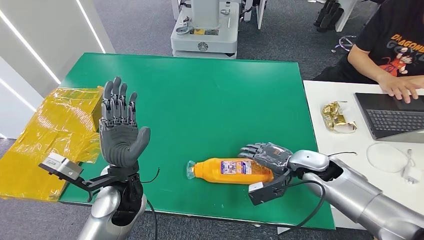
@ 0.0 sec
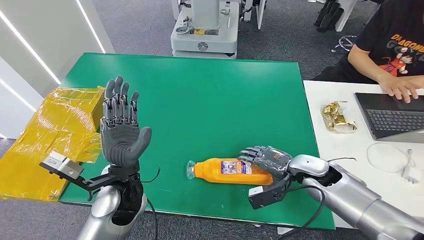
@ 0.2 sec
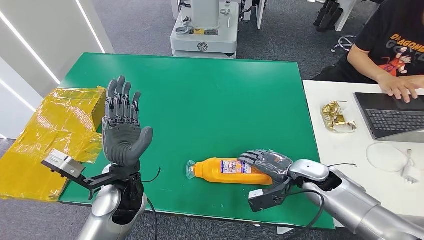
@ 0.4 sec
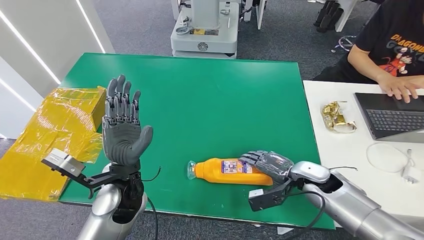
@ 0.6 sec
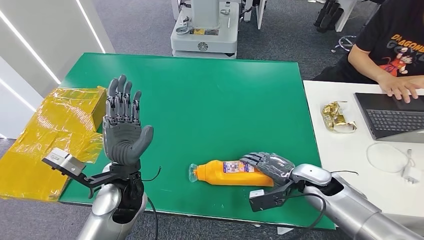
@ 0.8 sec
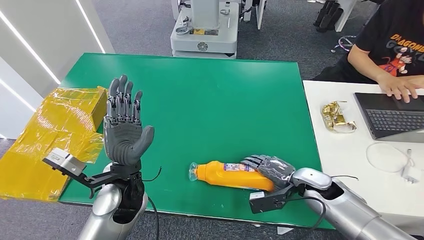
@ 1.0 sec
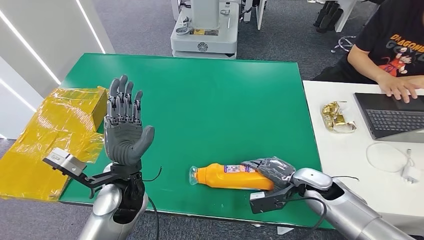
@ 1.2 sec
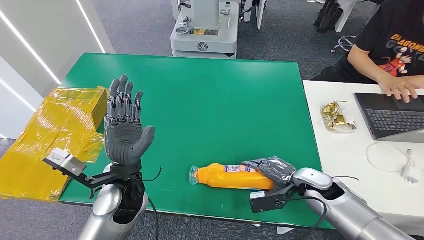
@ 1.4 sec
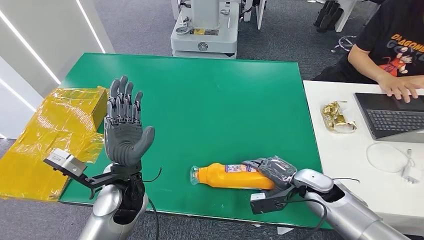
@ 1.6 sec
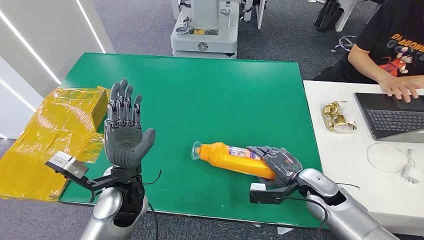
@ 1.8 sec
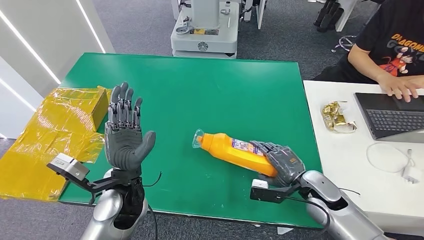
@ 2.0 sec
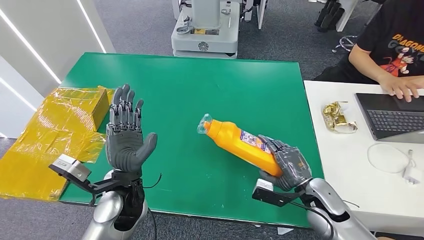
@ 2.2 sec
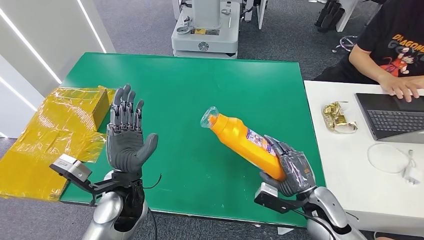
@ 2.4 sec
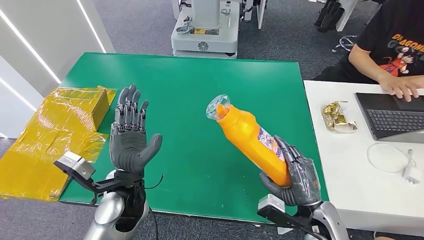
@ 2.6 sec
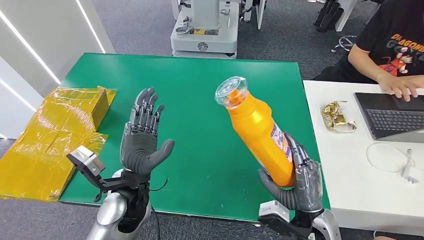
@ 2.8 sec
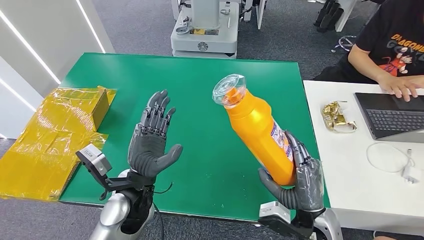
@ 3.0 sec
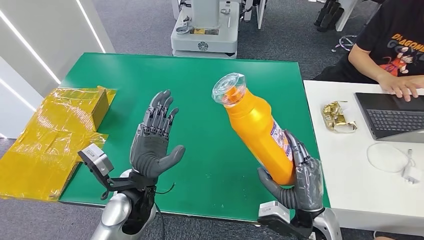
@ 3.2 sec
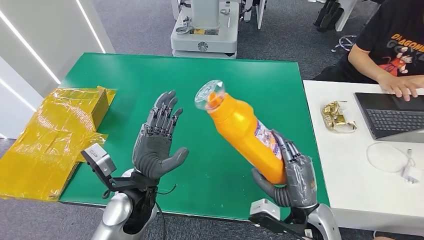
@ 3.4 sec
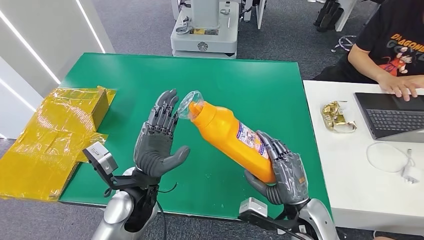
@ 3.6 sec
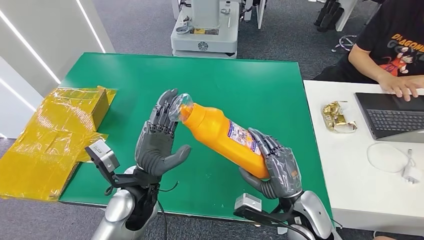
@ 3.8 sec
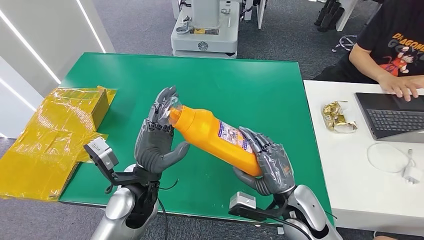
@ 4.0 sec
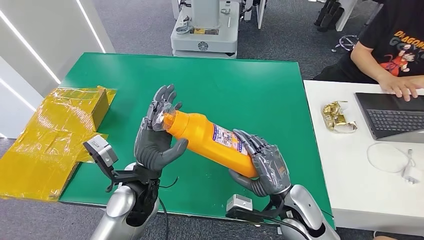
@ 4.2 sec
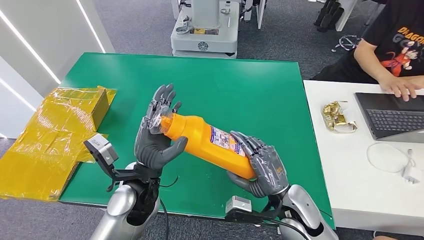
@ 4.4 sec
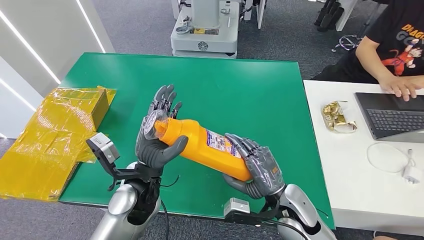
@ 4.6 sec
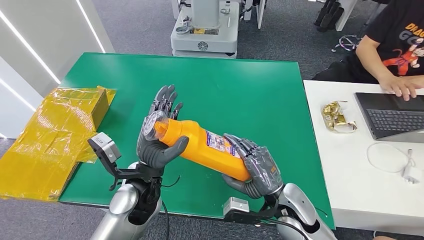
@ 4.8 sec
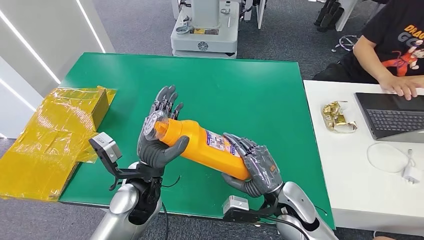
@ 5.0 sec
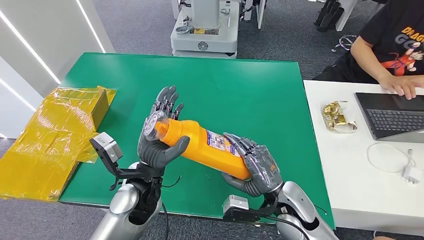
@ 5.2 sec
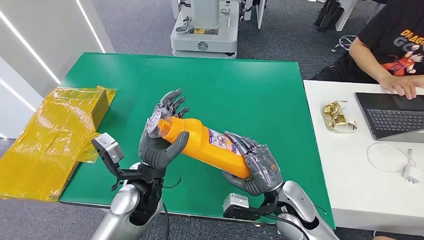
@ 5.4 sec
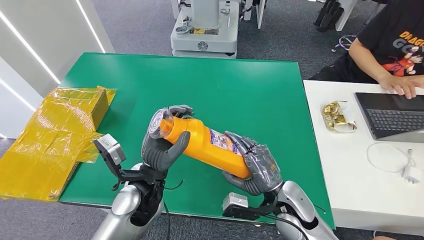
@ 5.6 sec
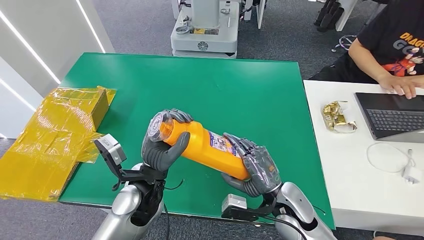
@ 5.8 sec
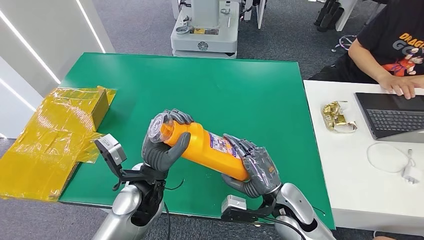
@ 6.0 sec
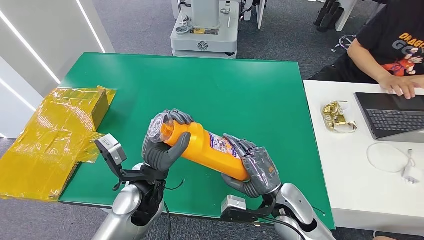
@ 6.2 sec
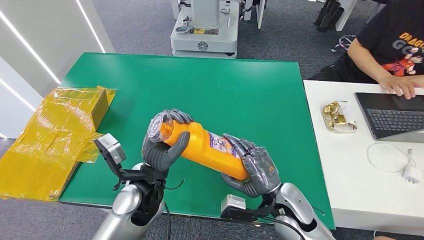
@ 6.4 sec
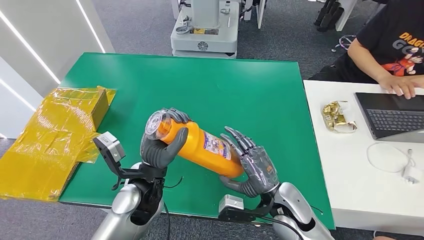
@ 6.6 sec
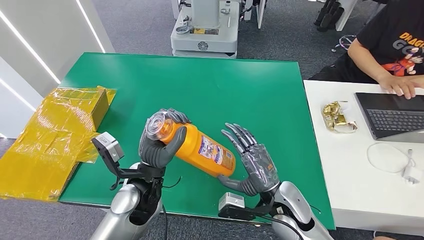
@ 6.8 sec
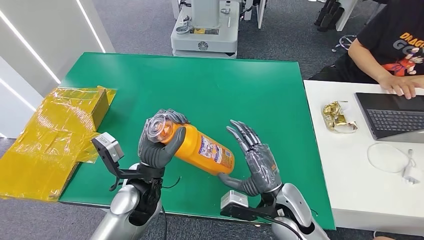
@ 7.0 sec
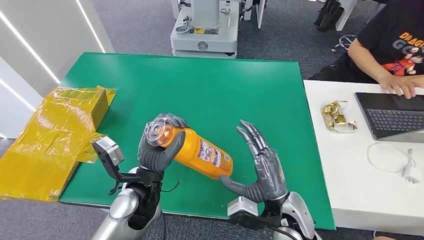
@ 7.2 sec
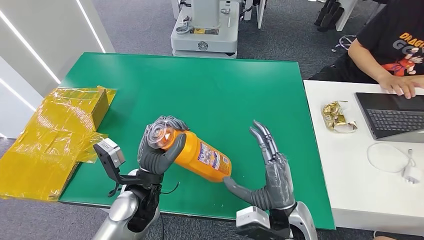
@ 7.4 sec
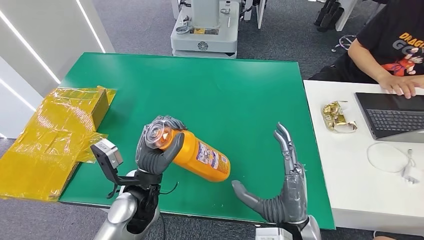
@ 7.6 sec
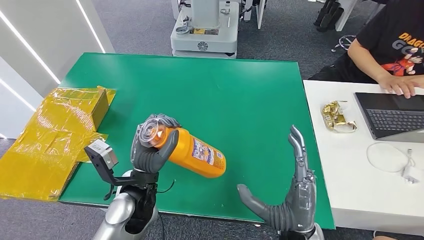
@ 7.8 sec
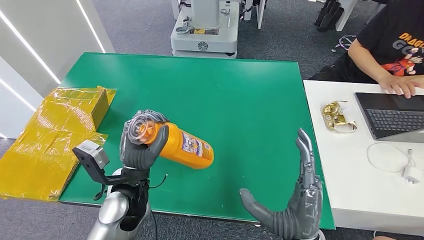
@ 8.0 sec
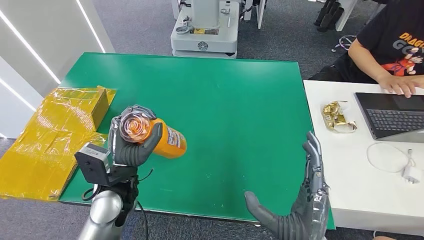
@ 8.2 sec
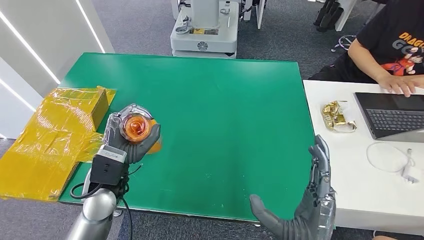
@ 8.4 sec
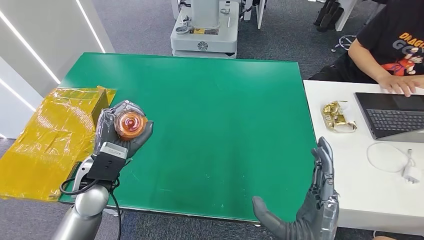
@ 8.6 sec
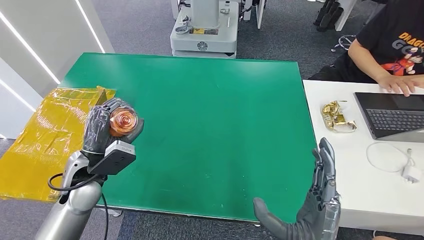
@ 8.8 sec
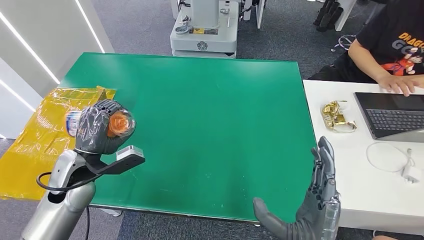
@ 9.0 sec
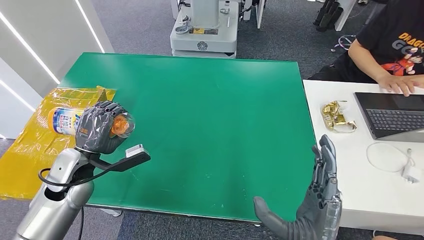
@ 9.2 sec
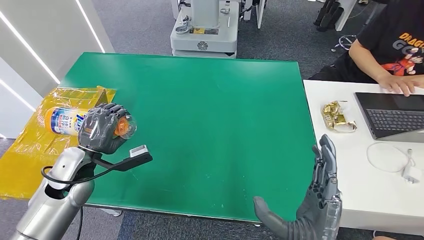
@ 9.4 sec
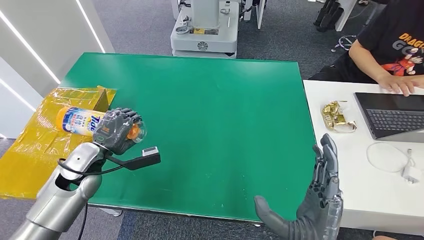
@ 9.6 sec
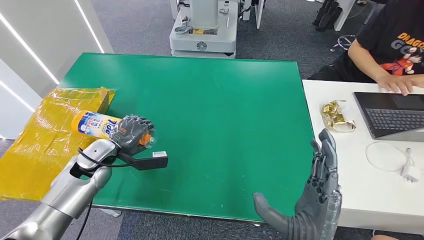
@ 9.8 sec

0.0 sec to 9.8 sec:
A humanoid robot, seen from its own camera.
Step, 0.0 sec to 2.8 sec: Pick up the bottle from the table.
0.0 sec to 1.4 sec: The right hand moves downward, about 5 cm.
1.4 sec to 2.8 sec: The right hand moves backward and to the left, about 15 cm.
2.8 sec to 4.2 sec: The right hand shifts by about 5 cm.
4.2 sec to 7.0 sec: There are only small adjustments of the hands.
7.0 sec to 8.4 sec: The right hand is displaced backward by some 10 cm. Meanwhile the left hand is displaced to the left by some 10 cm.
8.4 sec to 9.8 sec: The left hand is displaced to the left, forward and downward by approximately 15 cm.

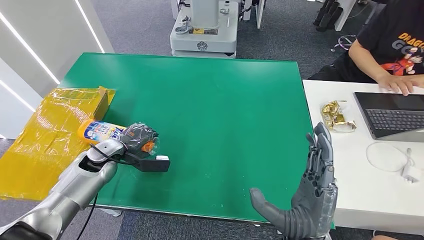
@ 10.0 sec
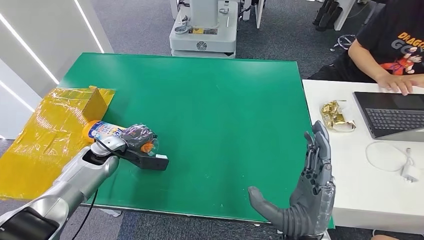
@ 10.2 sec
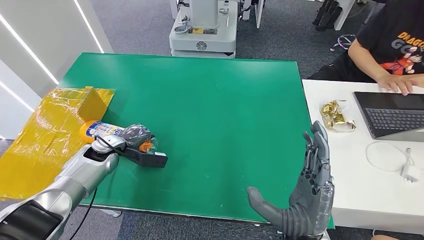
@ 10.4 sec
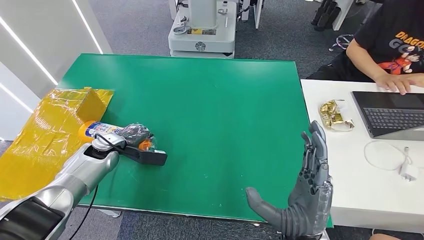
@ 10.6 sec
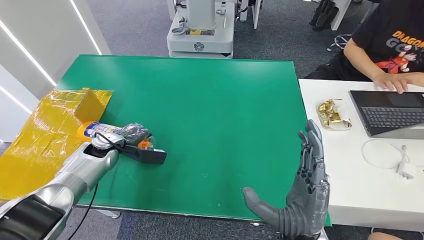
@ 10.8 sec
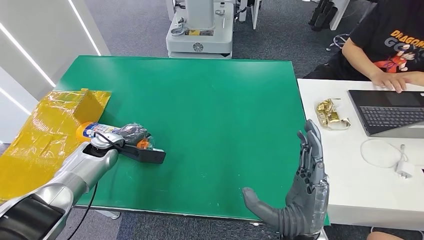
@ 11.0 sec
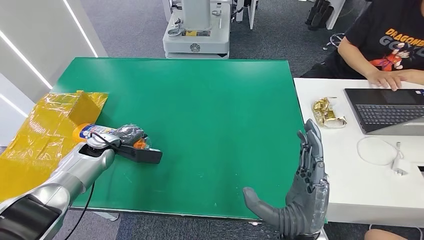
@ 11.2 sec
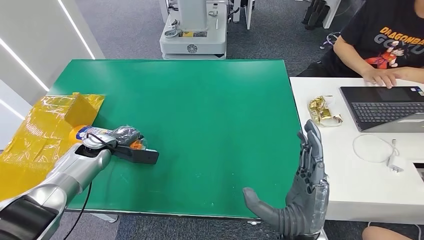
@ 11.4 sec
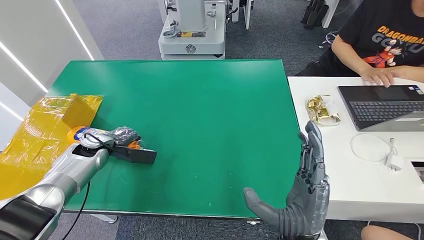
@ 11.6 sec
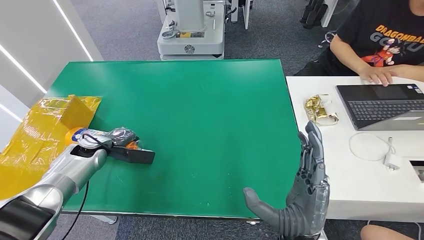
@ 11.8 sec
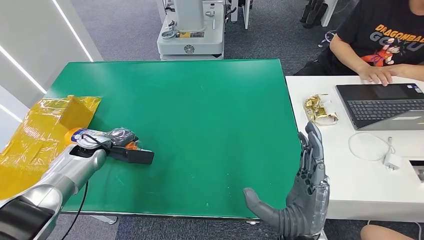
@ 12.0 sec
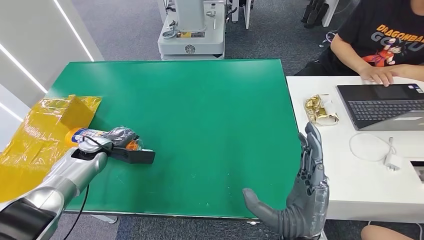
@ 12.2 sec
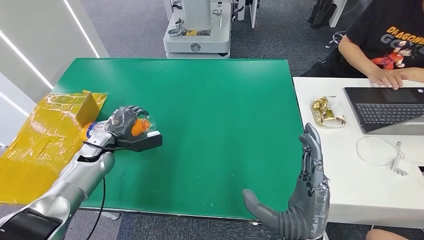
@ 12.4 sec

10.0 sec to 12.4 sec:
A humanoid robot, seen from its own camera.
Step, 10.0 sec to 12.4 sec: Turn the bottle to the front side.
